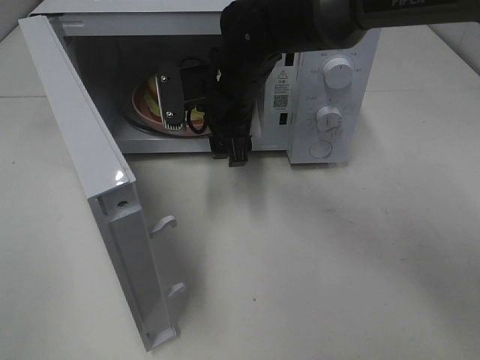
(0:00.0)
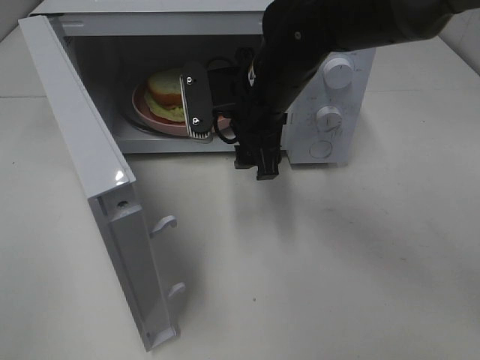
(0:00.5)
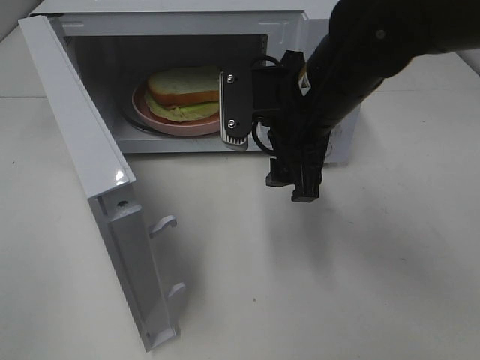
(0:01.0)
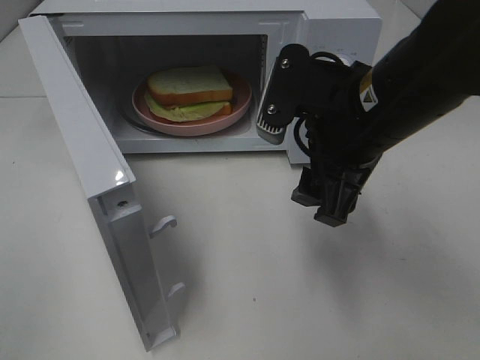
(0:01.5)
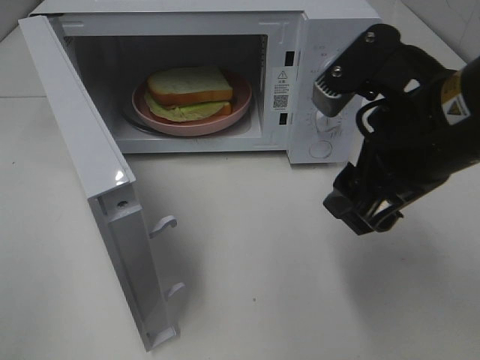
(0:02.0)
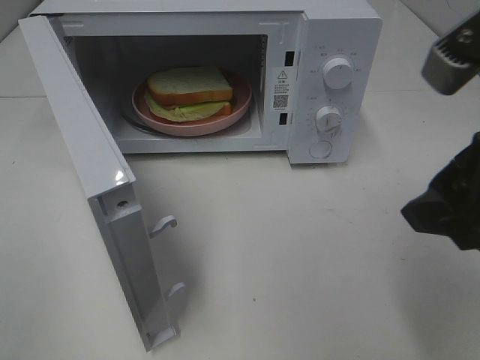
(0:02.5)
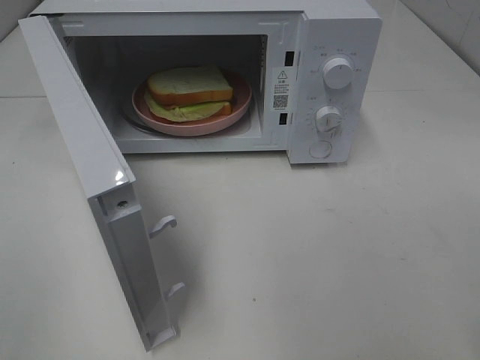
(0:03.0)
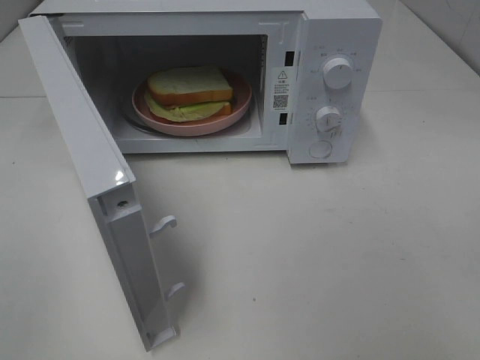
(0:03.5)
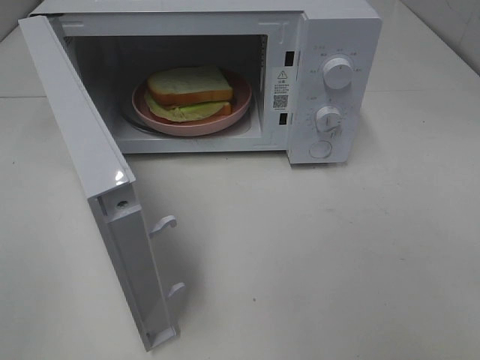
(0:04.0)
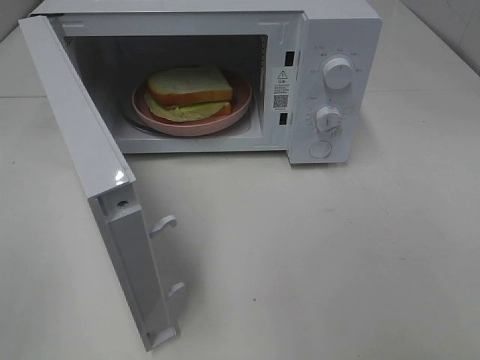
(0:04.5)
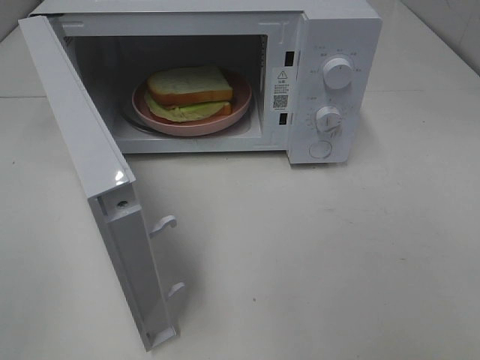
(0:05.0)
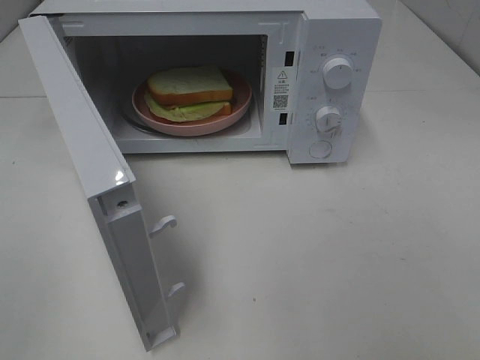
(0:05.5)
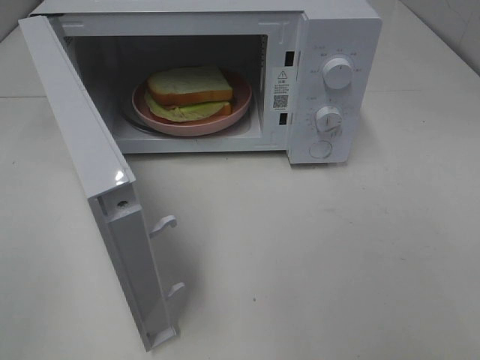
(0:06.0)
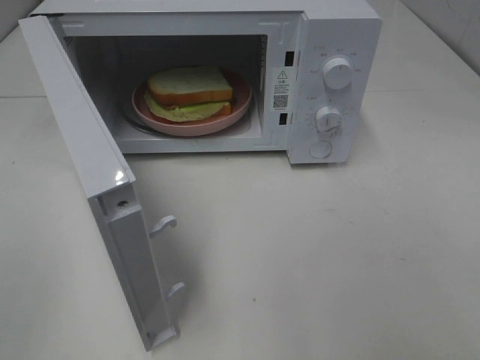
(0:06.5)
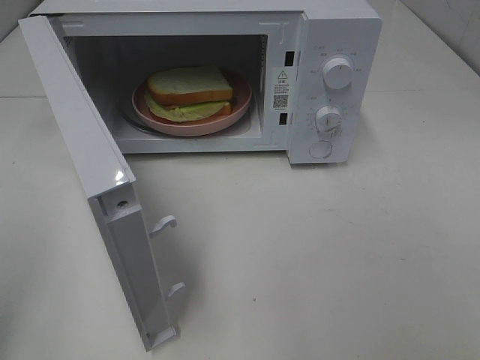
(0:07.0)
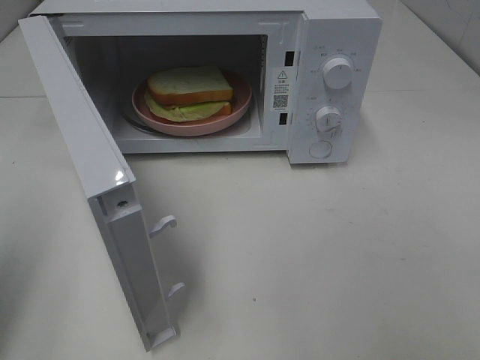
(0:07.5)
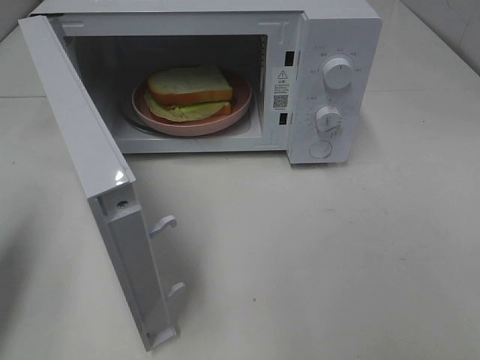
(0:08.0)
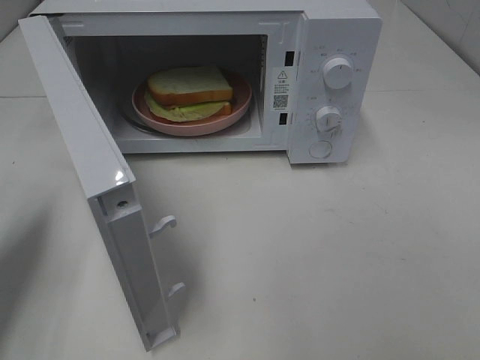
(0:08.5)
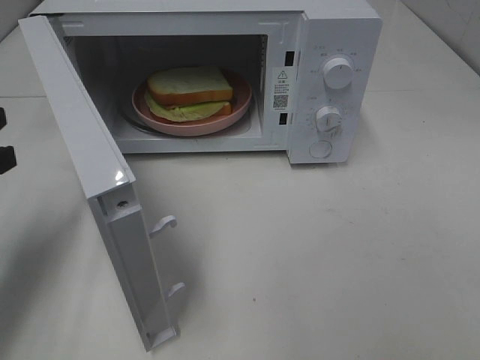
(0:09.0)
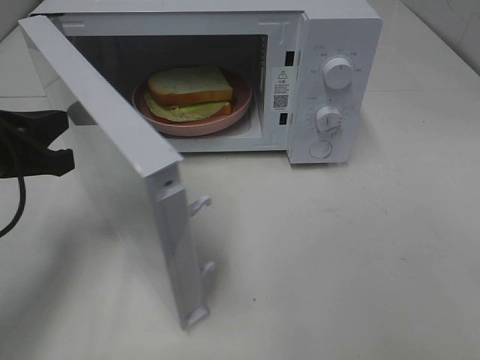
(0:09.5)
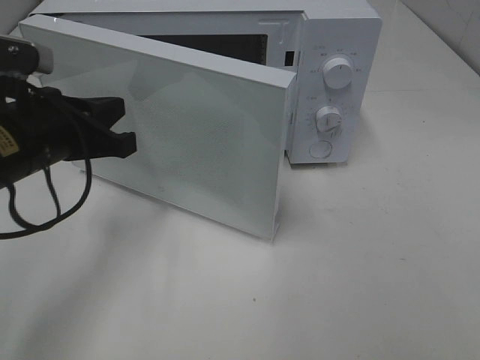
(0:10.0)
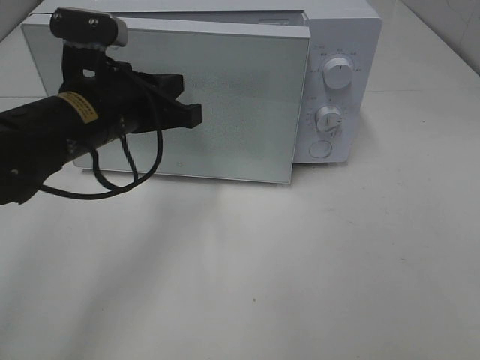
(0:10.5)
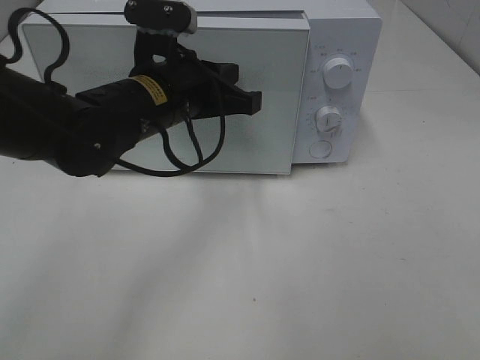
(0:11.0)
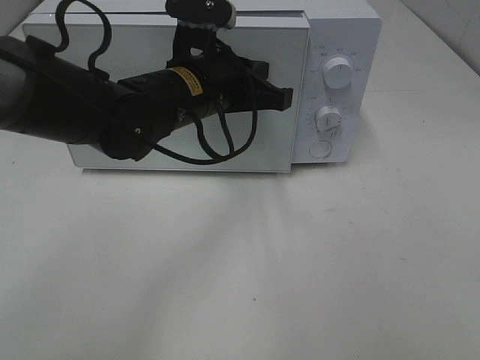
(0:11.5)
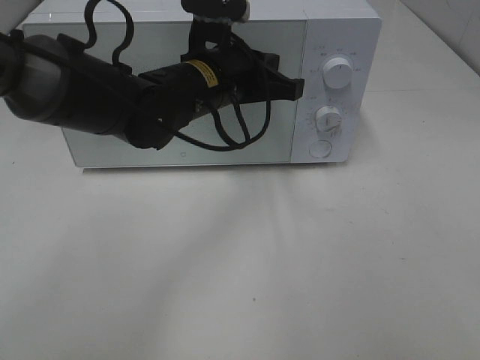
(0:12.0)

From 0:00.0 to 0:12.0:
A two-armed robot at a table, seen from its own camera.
Task of the whole recording: Heat Sandwich.
From 0:00.0 to 0:02.0: The right gripper heads backward, to the right and upward, covering approximately 25 cm.
From 0:02.0 to 0:04.0: The right gripper travels backward and to the right by approximately 20 cm.
From 0:06.0 to 0:08.0: The left gripper is displaced forward by some 20 cm, and closes its fingers.
From 0:08.0 to 0:10.0: The left gripper travels to the right, forward and downward by approximately 15 cm.
From 0:10.0 to 0:12.0: The left gripper shifts approximately 20 cm to the right and forward.

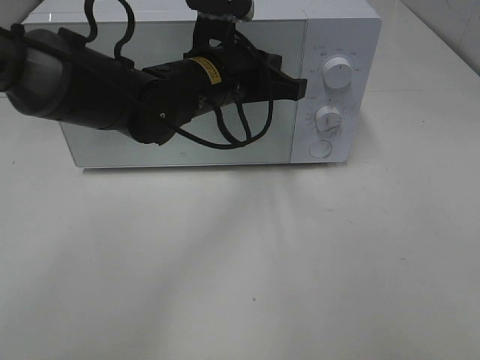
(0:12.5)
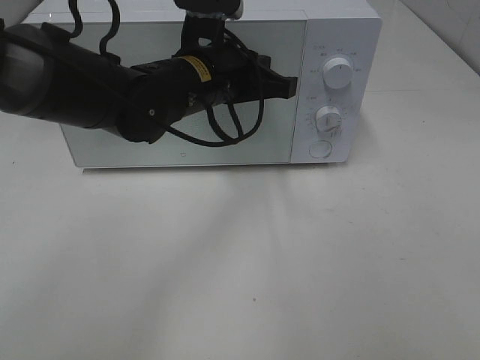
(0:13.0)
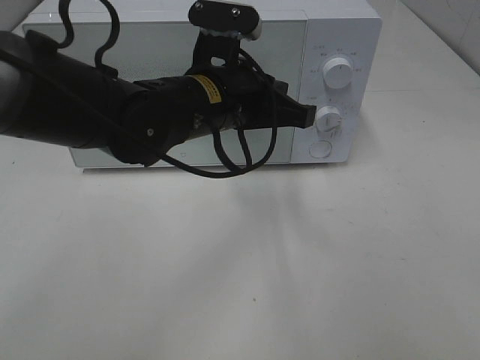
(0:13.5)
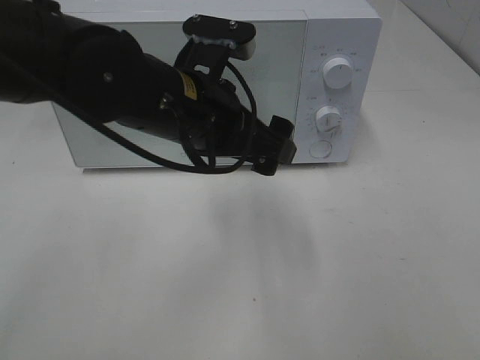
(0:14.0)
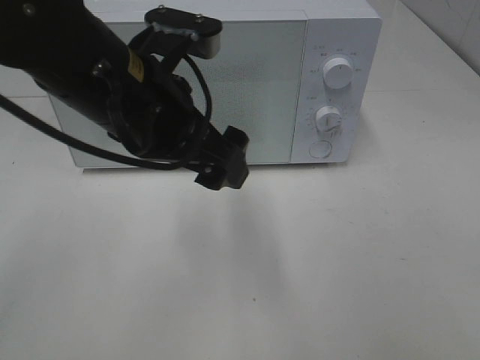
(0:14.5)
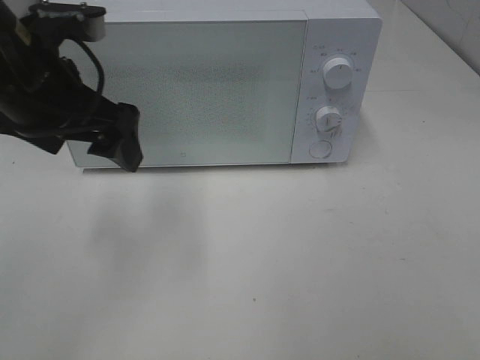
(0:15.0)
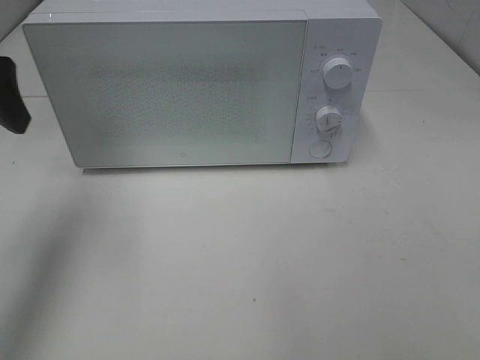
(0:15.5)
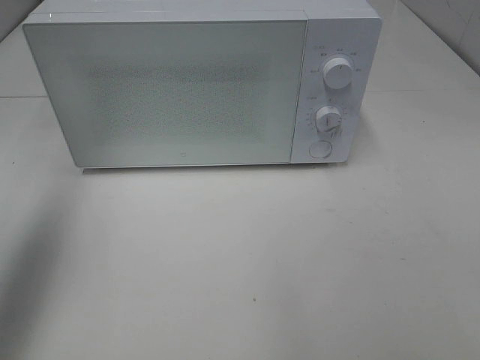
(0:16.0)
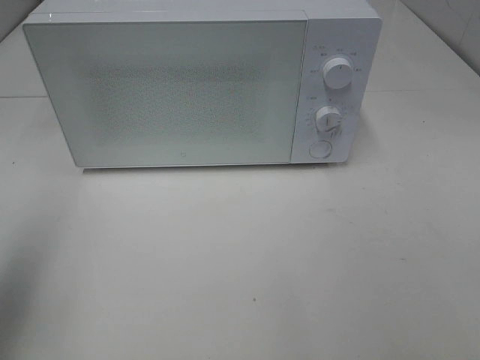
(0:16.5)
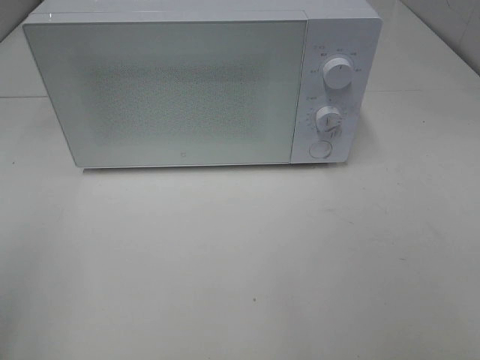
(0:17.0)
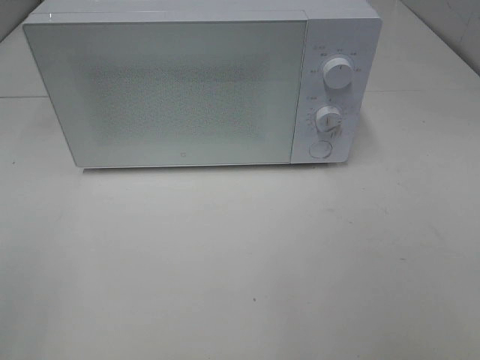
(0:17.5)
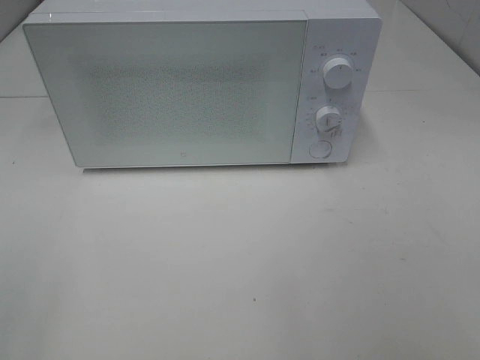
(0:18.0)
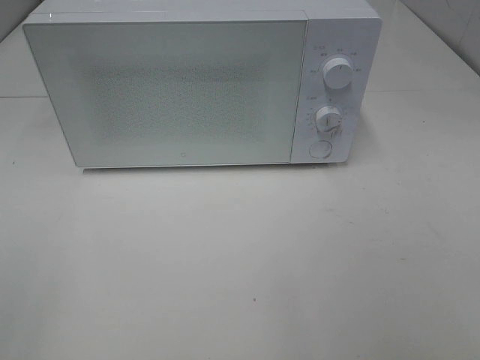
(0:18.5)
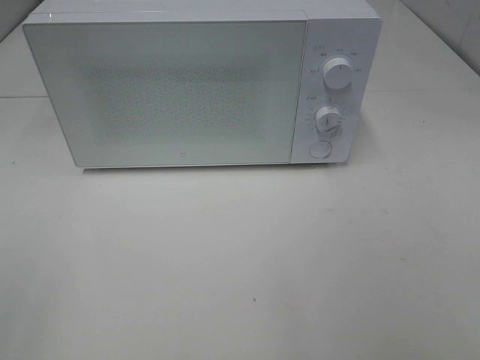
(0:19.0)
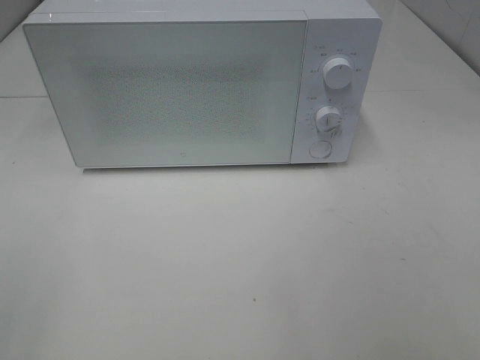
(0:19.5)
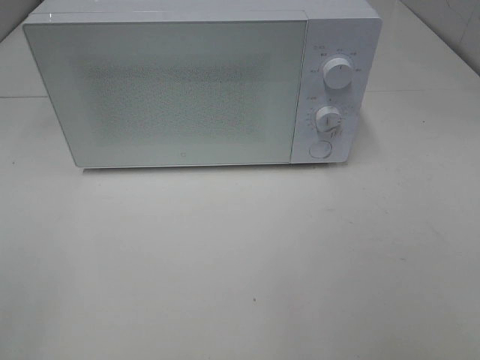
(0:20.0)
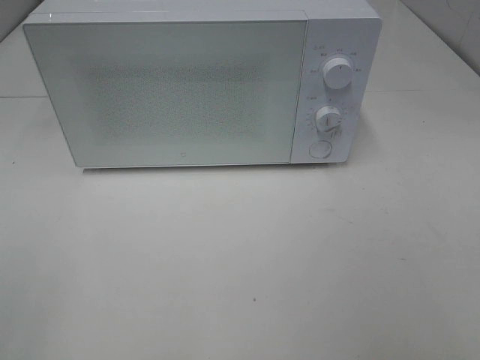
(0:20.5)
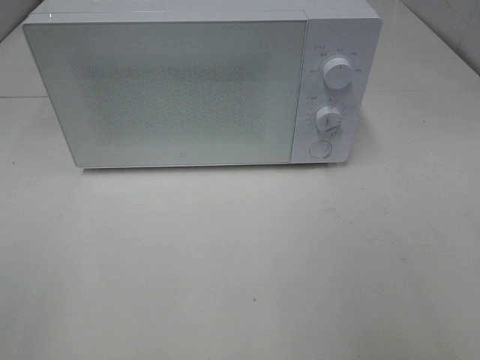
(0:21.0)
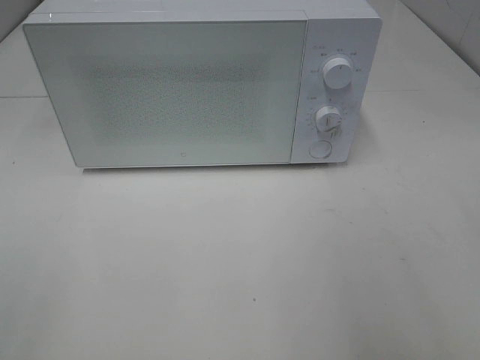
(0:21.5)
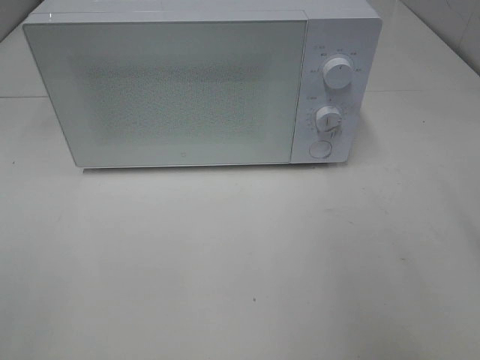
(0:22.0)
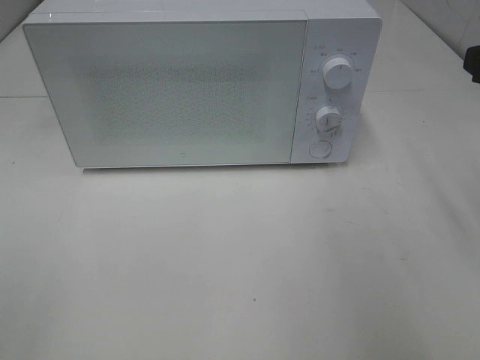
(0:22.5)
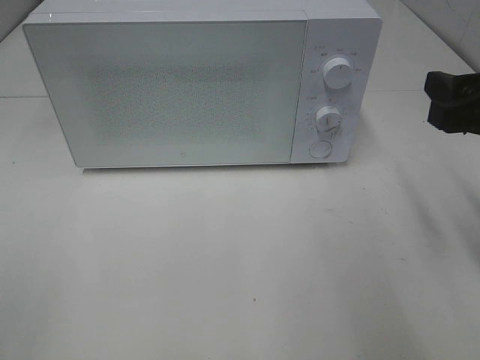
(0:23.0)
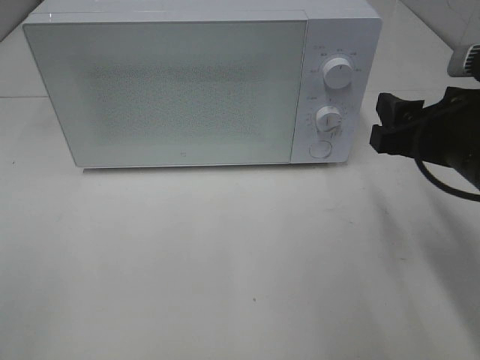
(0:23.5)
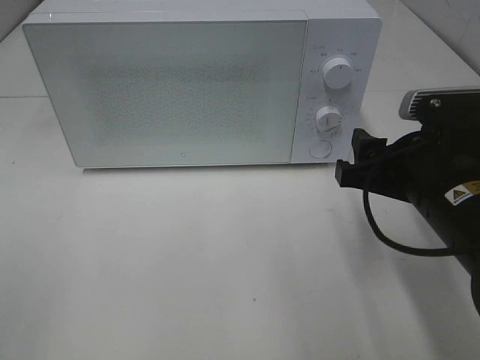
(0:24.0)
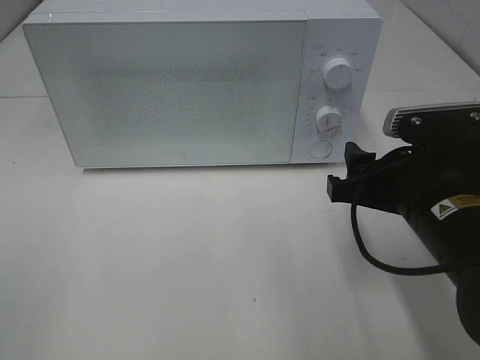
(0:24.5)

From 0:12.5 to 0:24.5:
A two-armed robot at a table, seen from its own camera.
Task of the whole recording: Heat Sandwich.
From 0:12.5 to 0:14.5: The left gripper is displaced backward, to the left and upward by about 15 cm, and opens its fingers.
From 0:14.5 to 0:16.5: The left gripper heads to the left and backward, covering roughly 25 cm.
From 0:16.5 to 0:18.5: The left gripper shifts some 15 cm backward.
From 0:22.5 to 0:24.5: The right gripper goes some 15 cm downward and to the left.

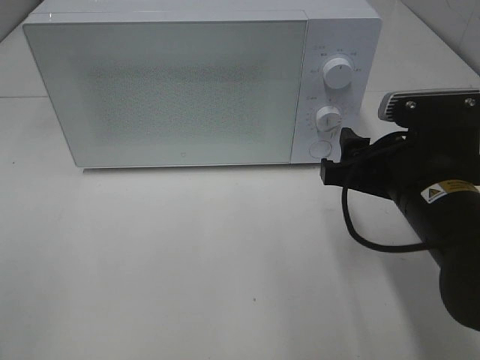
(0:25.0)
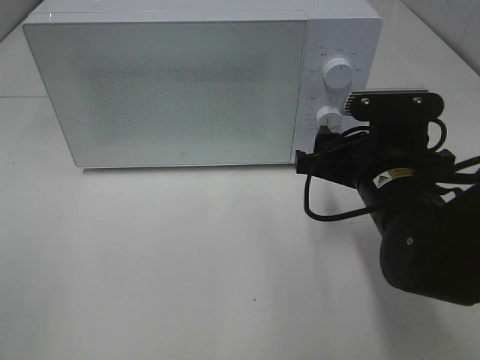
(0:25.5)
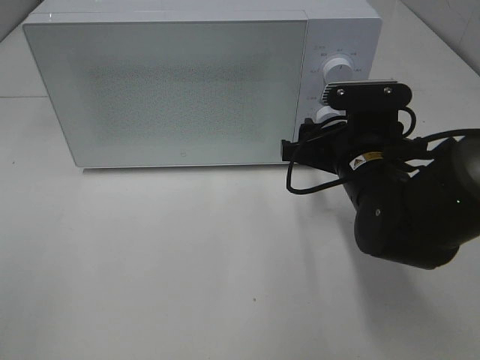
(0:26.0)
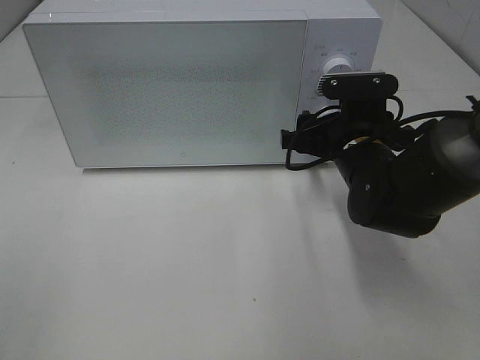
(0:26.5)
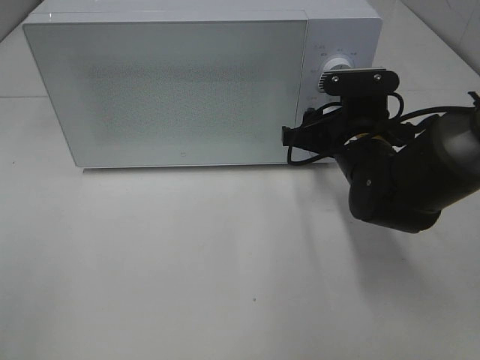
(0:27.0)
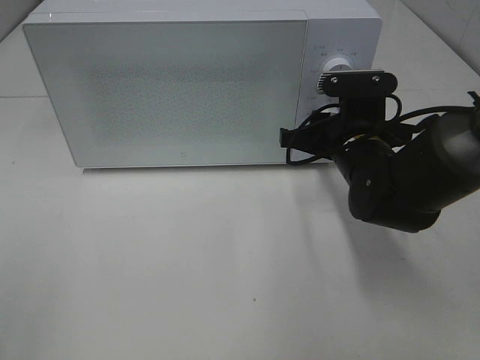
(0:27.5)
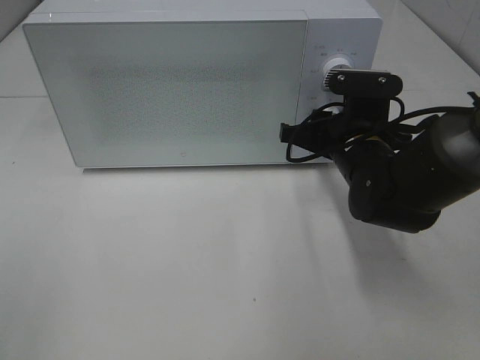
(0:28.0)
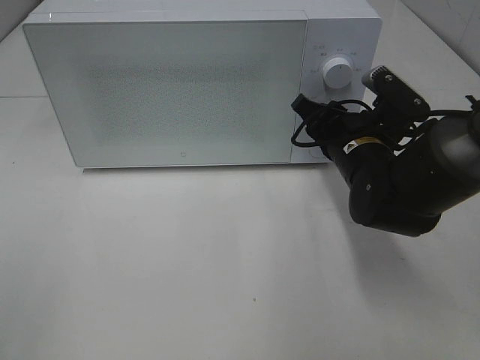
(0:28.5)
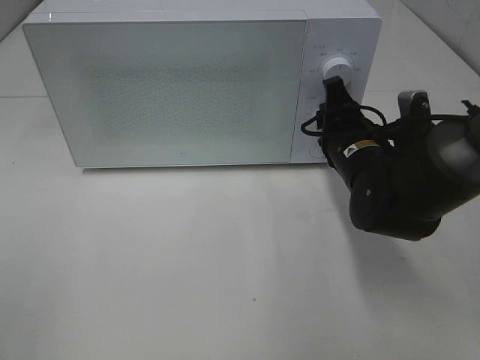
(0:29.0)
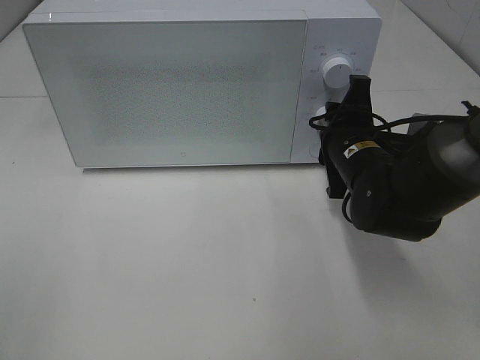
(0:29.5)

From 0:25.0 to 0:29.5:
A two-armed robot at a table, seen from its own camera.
Task of the whole recording: Heat Sandwich.
From 0:25.0 to 0:27.0: The right gripper goes approximately 10 cm forward.
